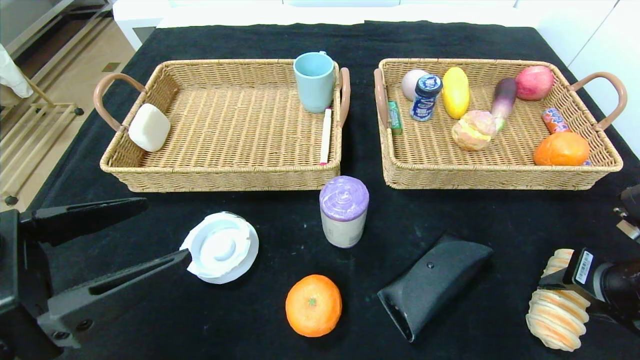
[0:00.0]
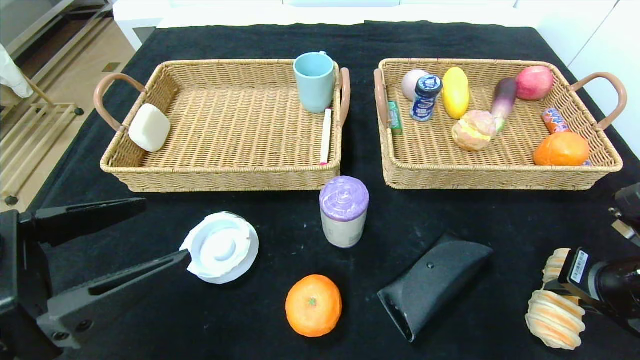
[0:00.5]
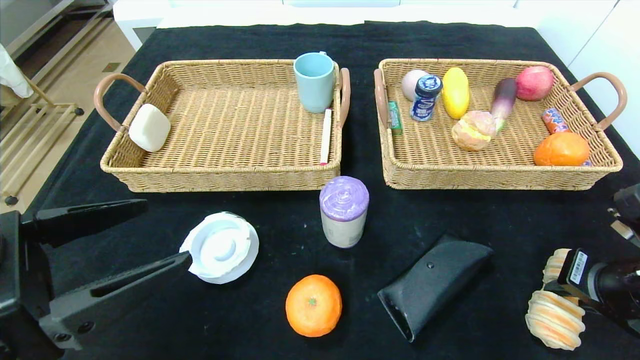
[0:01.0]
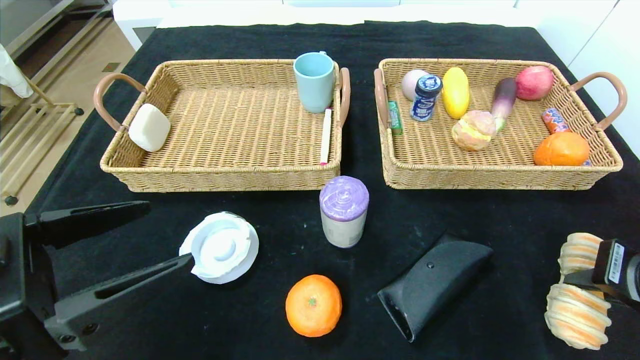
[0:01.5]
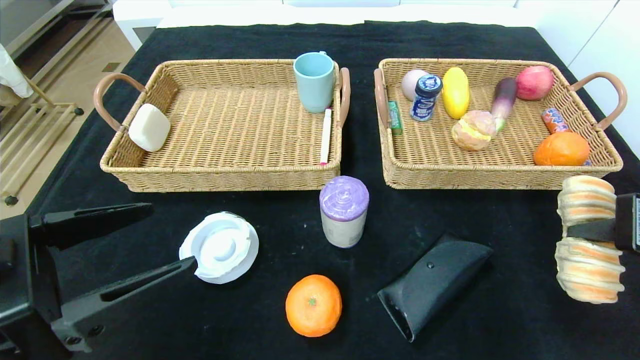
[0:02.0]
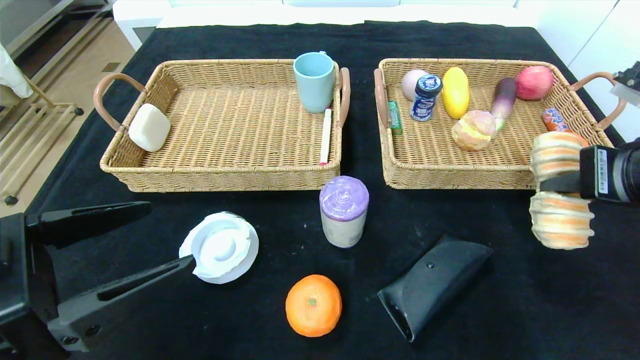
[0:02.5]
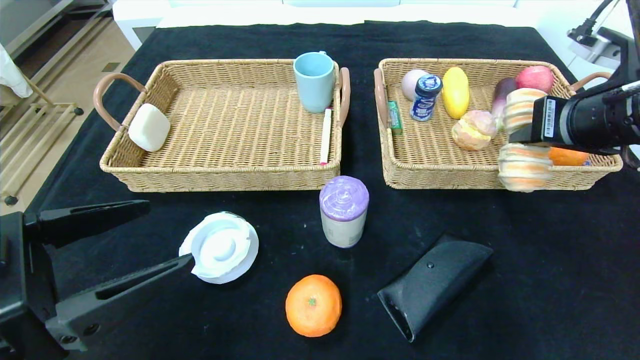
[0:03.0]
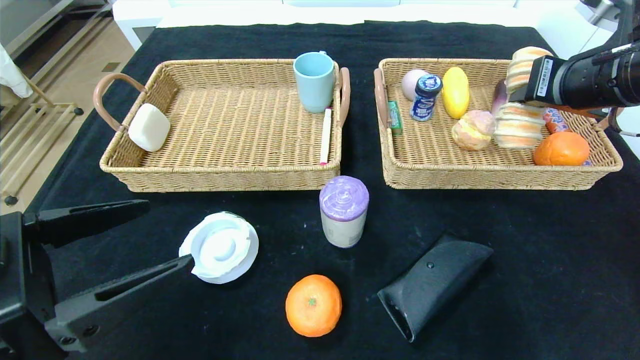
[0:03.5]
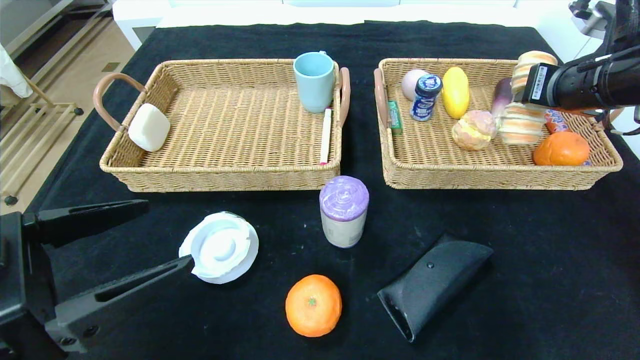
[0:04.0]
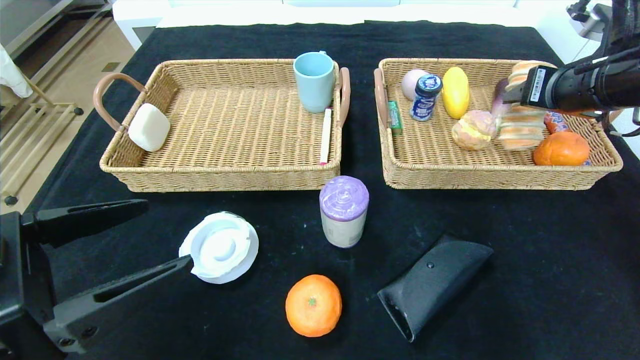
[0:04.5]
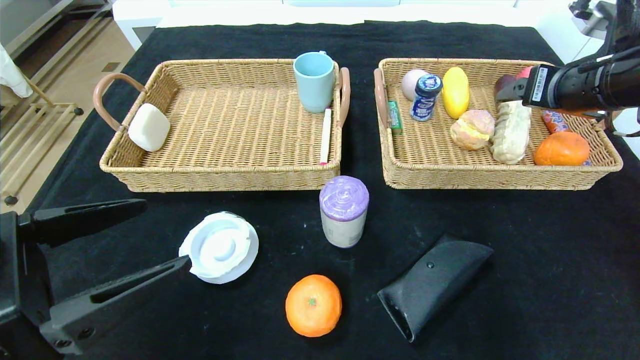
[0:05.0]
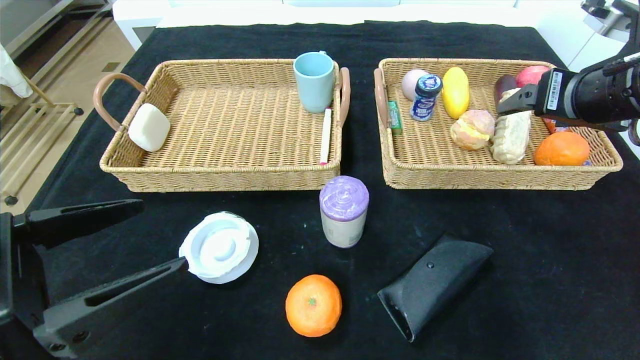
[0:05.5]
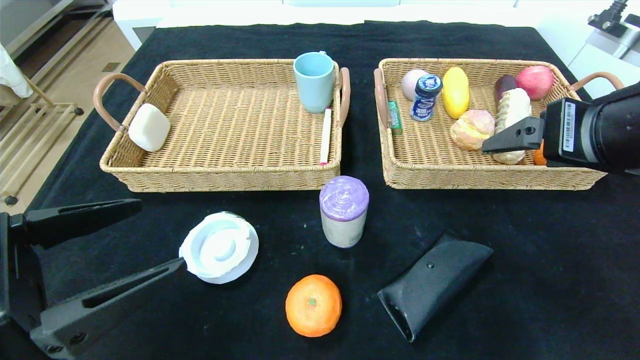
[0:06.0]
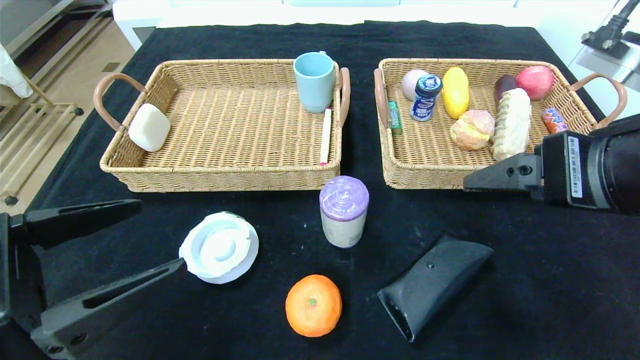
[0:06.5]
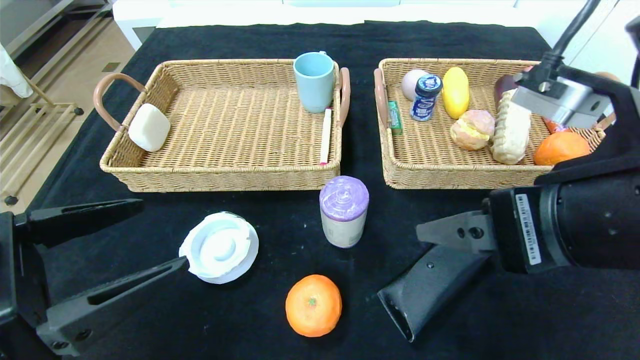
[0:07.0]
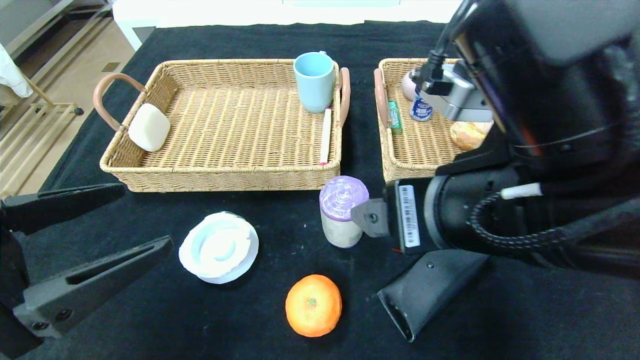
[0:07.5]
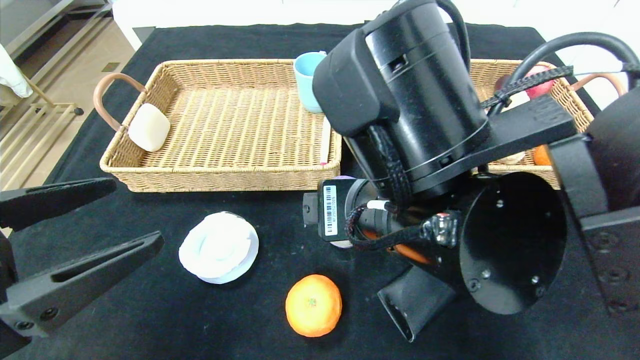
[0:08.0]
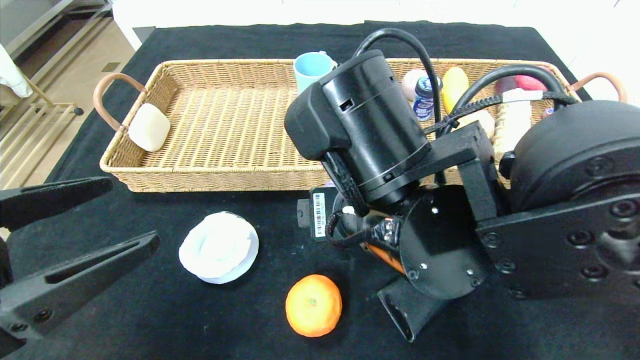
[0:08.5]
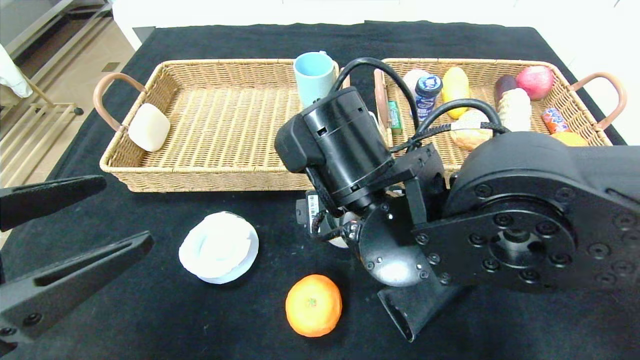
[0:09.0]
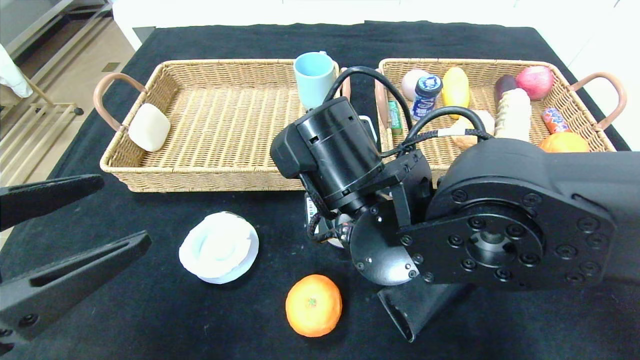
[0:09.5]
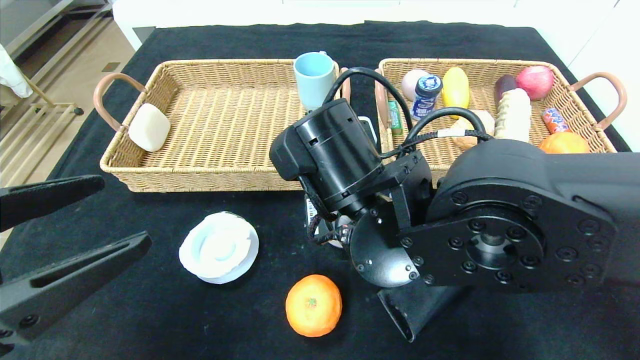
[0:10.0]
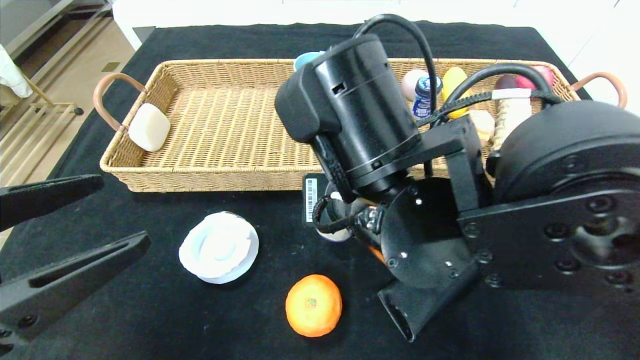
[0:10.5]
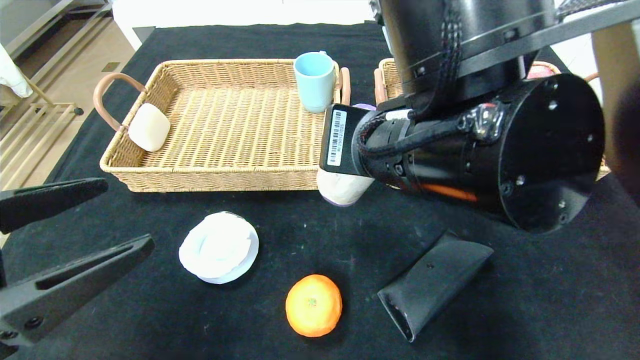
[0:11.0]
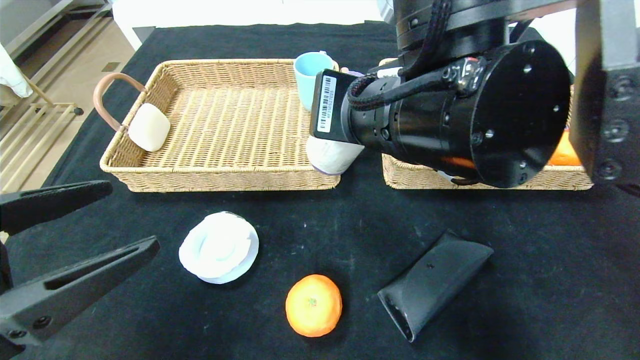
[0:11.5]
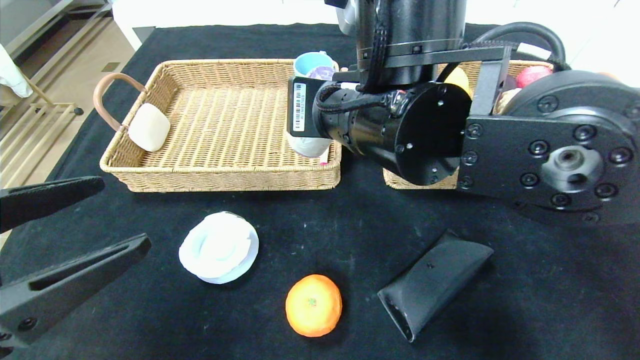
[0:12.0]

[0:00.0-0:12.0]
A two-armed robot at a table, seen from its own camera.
Step, 0:00.0 to 0:04.5: Grasp the long bread and put it in the right basket.
0:00.0 to 0:02.0: The right gripper moves upward, approximately 10 cm, and closes.
0:02.0 to 0:04.0: The right gripper travels forward and upward by some 20 cm.
0:04.0 to 0:06.0: The right gripper travels backward and to the left by approximately 15 cm, and opens up.
0:06.0 to 0:08.0: The right gripper shifts approximately 20 cm to the left.
0:08.0 to 0:10.0: The right gripper moves approximately 5 cm, and closes.
0:10.0 to 0:12.0: The right gripper heads upward, covering approximately 10 cm.

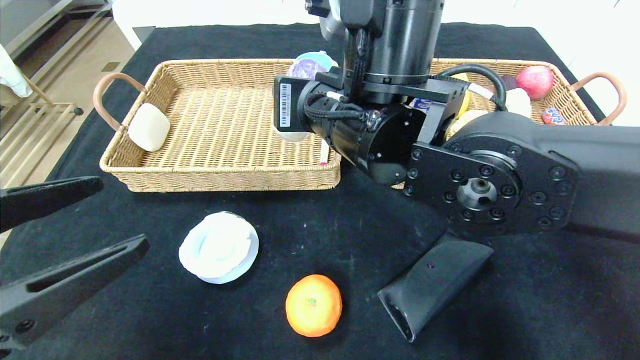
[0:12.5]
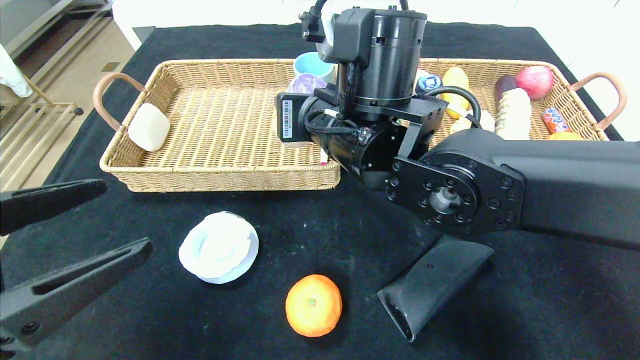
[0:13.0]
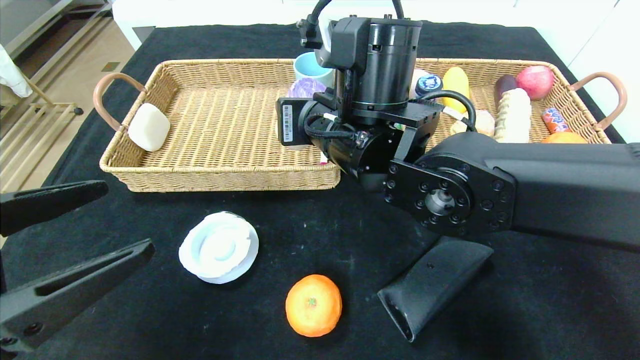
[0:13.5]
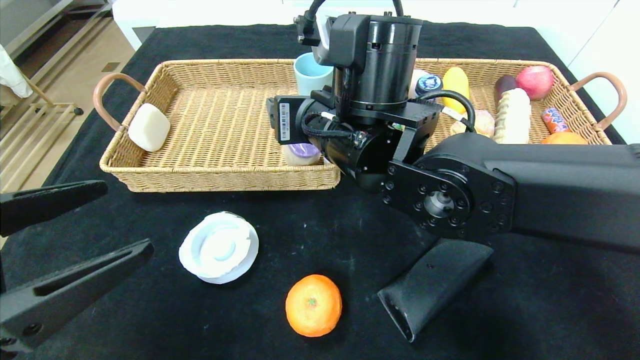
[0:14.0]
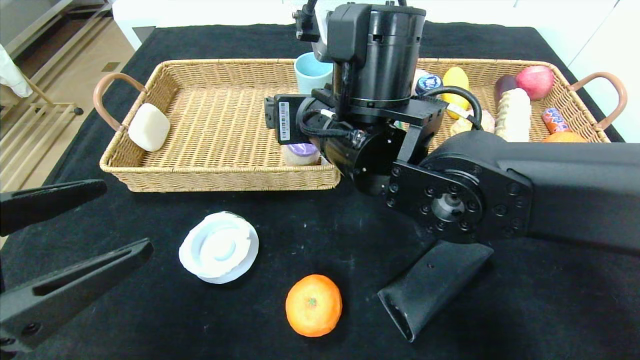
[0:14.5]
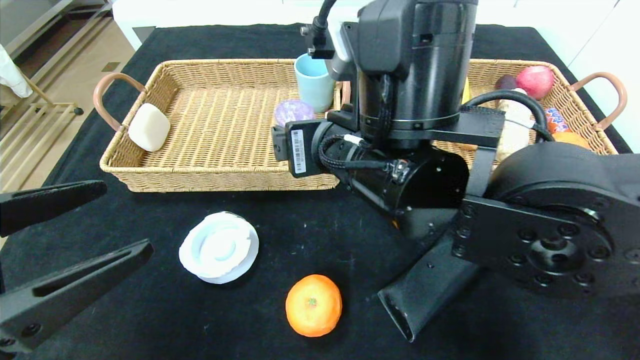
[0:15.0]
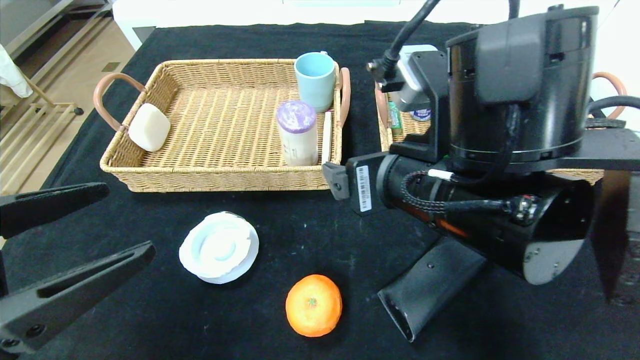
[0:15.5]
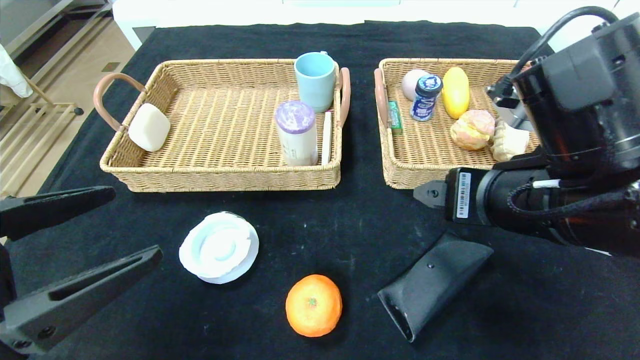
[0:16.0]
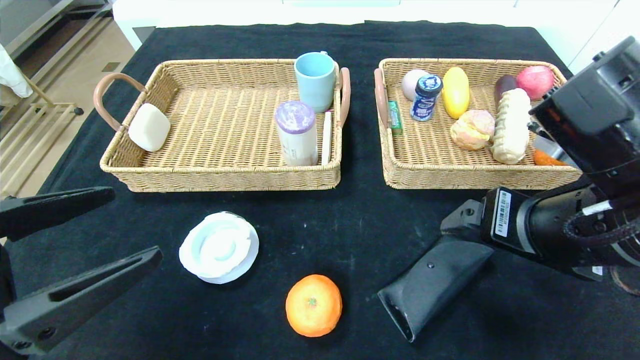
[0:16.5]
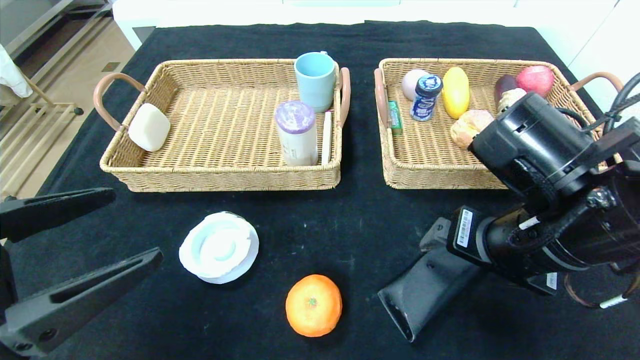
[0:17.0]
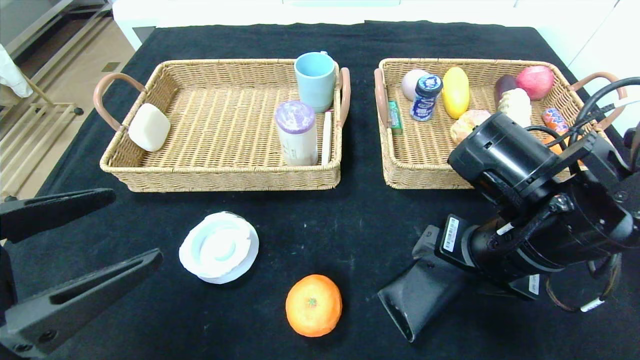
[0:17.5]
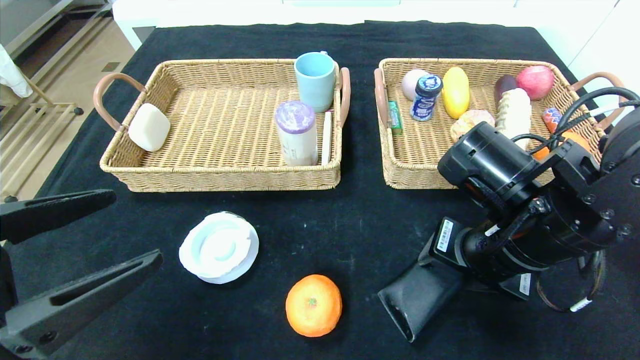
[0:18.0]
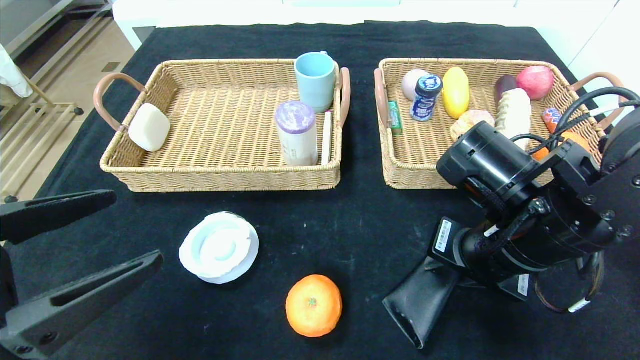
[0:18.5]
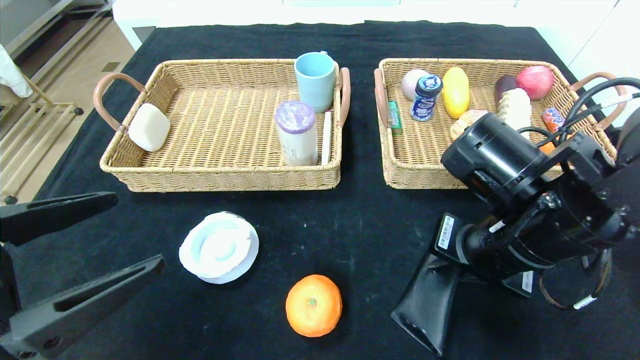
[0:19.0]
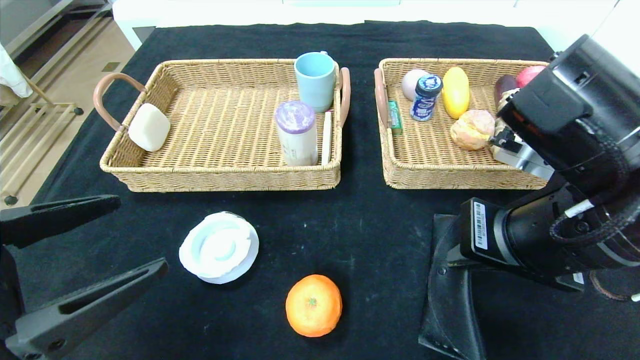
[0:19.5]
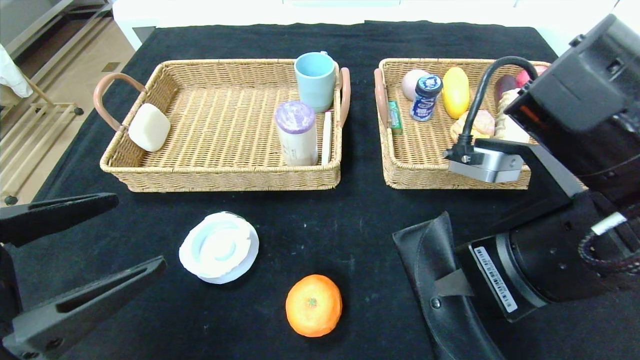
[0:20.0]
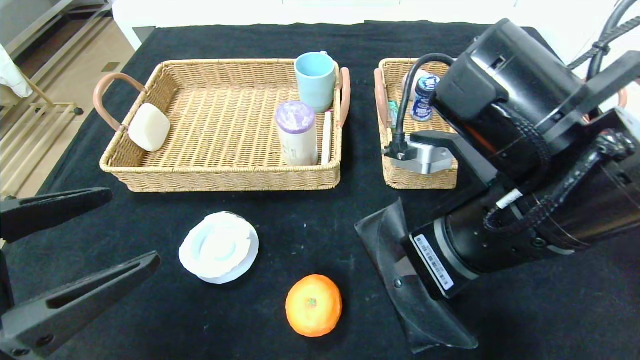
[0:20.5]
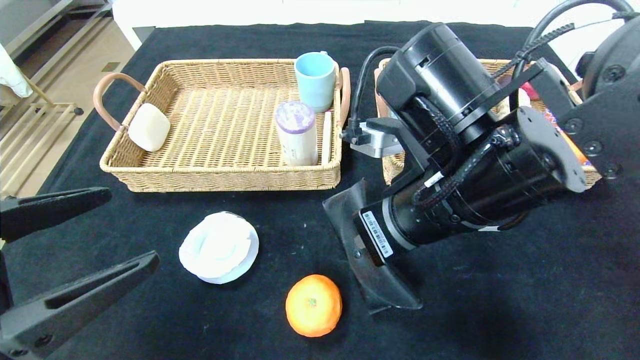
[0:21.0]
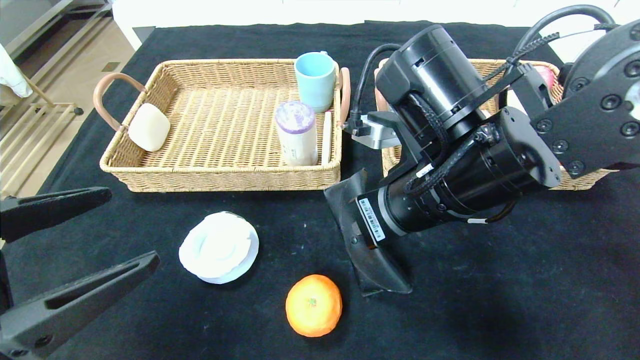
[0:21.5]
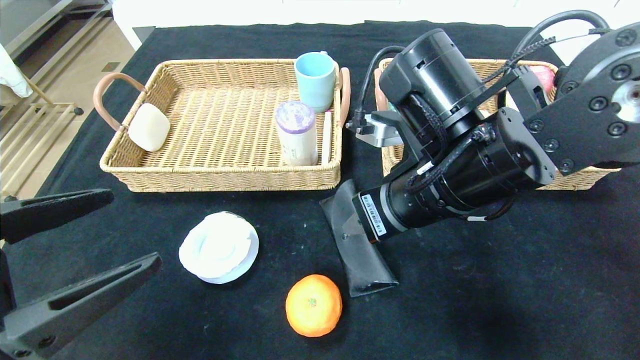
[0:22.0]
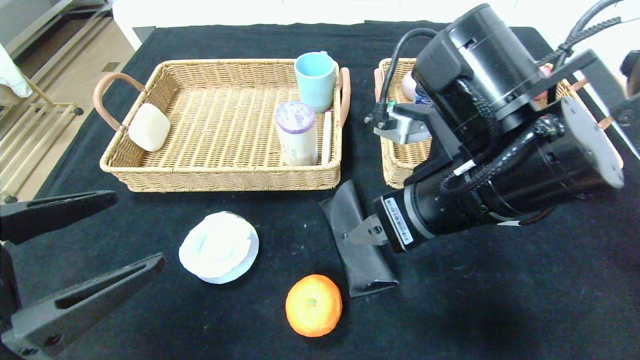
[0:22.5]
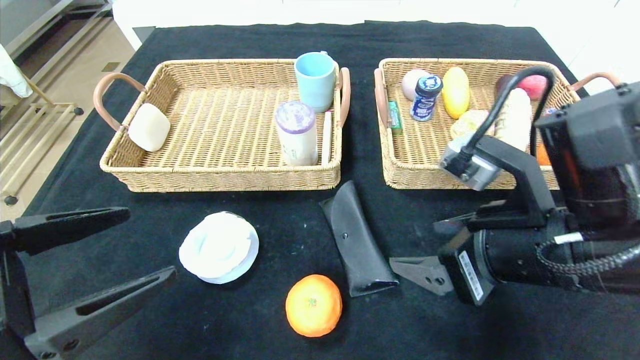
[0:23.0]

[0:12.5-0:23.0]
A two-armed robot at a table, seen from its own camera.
Step, 0:15.0 to 0:22.5: Place the glasses case in the center of the table.
0:12.5 to 0:14.5: The right gripper opens its fingers.
0:14.5 to 0:16.5: The right gripper shifts approximately 20 cm to the right and backward.
0:16.5 to 0:19.0: The right gripper moves some 5 cm, and closes up.
0:19.0 to 0:21.0: The right gripper heads to the left, covering some 5 cm.
0:21.0 to 0:23.0: The right gripper travels to the right by approximately 10 cm, and opens up.
